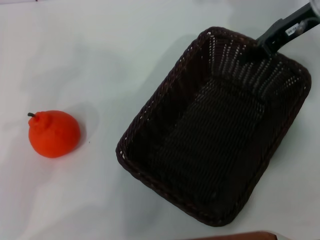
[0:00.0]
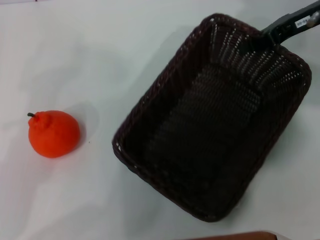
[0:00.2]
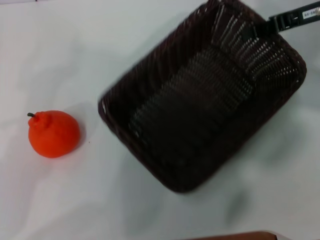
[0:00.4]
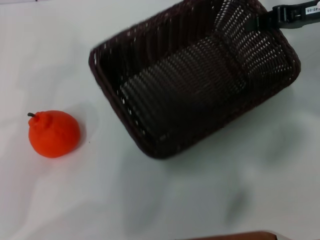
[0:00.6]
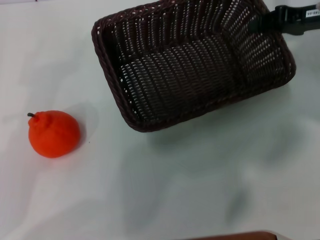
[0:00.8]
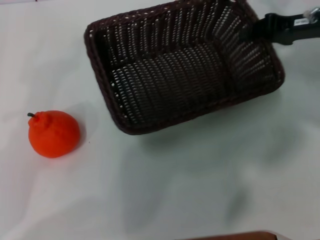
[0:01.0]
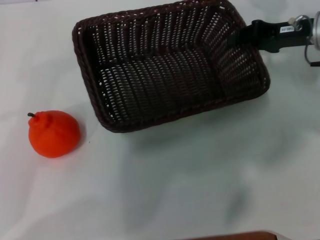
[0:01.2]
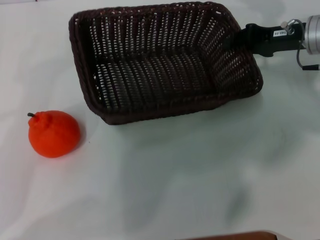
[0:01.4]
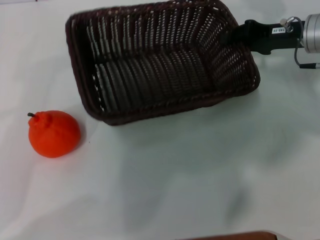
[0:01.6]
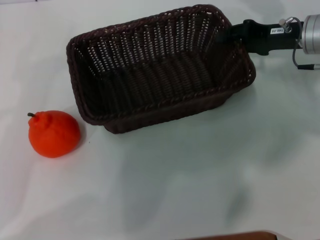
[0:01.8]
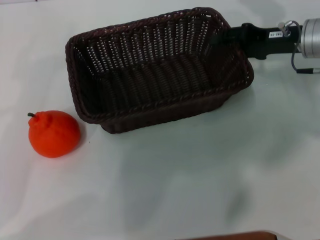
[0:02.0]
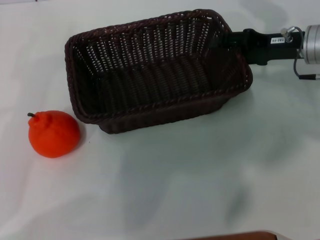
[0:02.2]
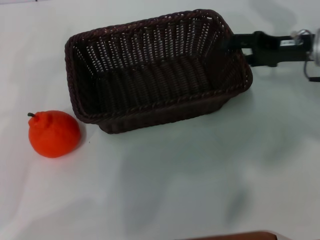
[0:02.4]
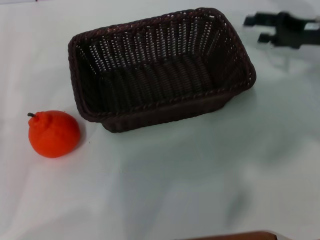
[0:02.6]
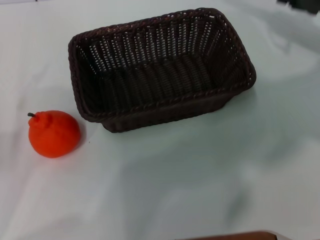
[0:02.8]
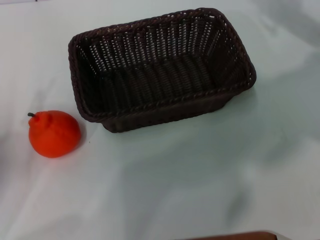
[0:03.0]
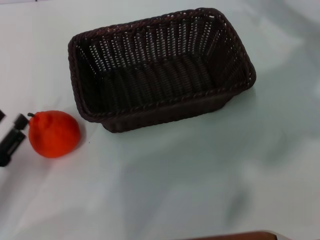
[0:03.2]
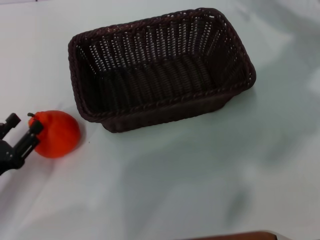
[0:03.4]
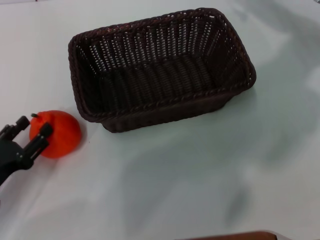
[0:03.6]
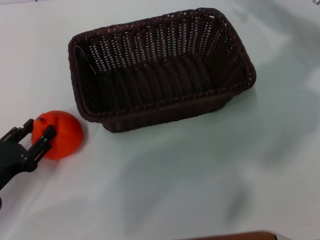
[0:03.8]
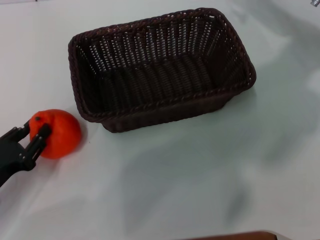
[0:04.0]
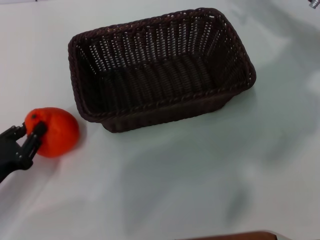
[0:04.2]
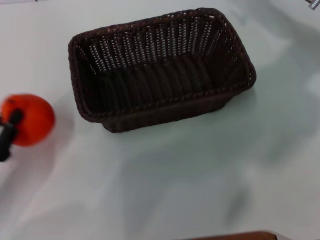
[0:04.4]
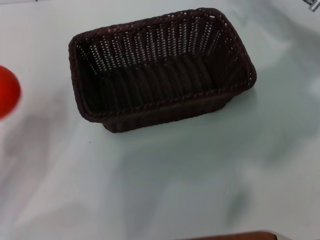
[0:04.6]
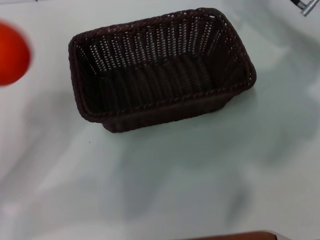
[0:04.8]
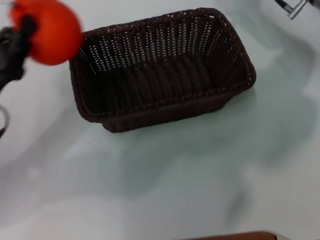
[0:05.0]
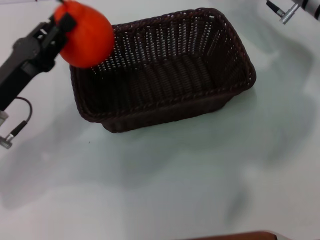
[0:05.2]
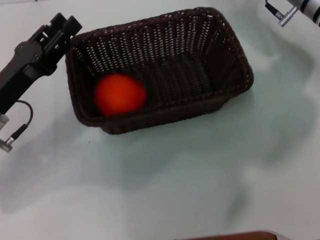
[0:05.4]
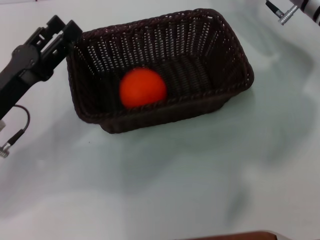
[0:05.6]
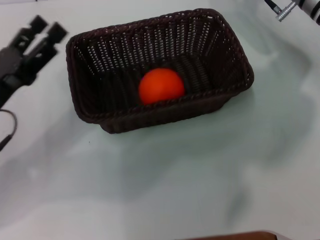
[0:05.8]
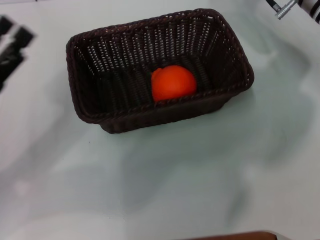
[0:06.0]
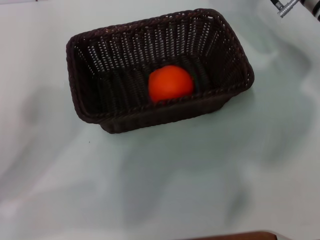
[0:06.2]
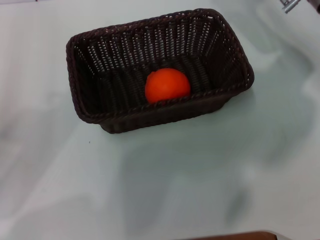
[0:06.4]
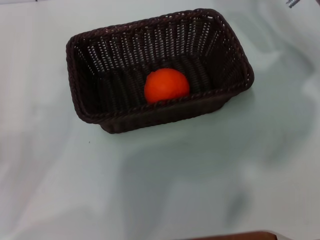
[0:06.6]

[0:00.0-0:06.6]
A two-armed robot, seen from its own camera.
Task of the whole recording: the right gripper pick up the black basket and place it horizontally in the middle of the table, the left gripper pick up the orange and place it into the black basket.
Step, 0:00.4 to 0:02.4: Place the dark basket in the center of view with the right gripper.
Step, 0:02.6 to 0:04.4: Pick up the orange with the left gripper.
Step, 0:04.6 to 0:05.6: Place the orange into the dark basket with the left gripper.
0:00.0 to 0:01.6: The right gripper moves downward, roughly 5 cm.
0:01.6 to 0:03.2: The left gripper shifts approximately 5 cm downward; the right gripper moves roughly 5 cm, and opens.
0:03.2 to 0:05.0: The left gripper is displaced forward and upward by approximately 10 cm, and closes; the right gripper goes roughly 5 cm to the left.
0:05.0 to 0:06.6: The left gripper goes roughly 10 cm backward and to the left, and opens up.
